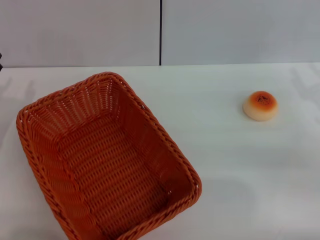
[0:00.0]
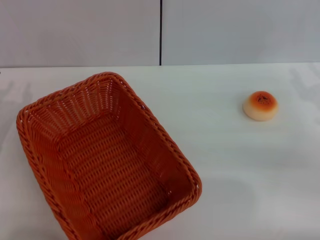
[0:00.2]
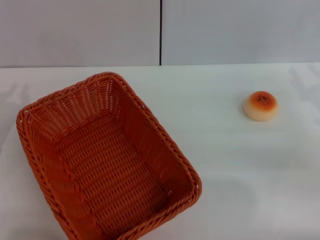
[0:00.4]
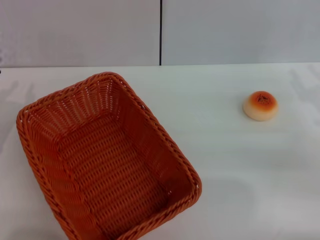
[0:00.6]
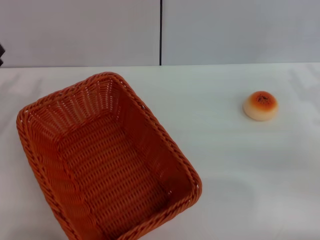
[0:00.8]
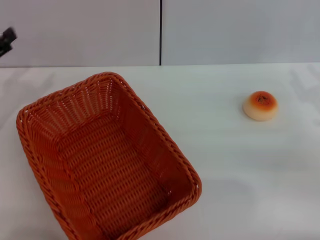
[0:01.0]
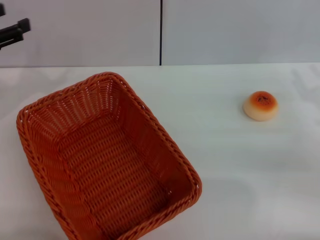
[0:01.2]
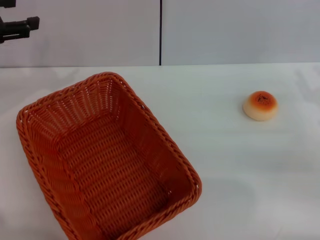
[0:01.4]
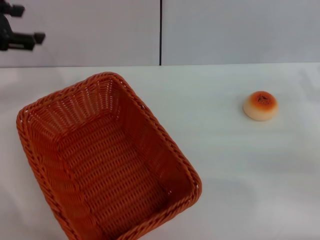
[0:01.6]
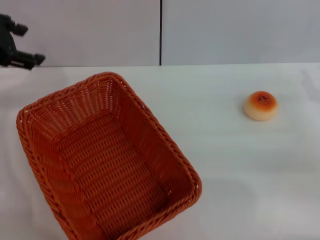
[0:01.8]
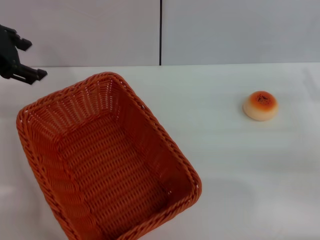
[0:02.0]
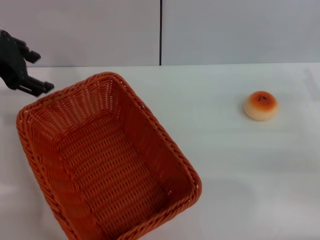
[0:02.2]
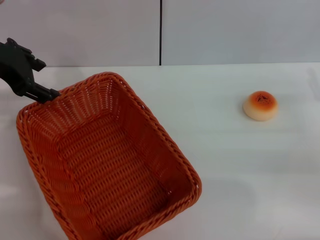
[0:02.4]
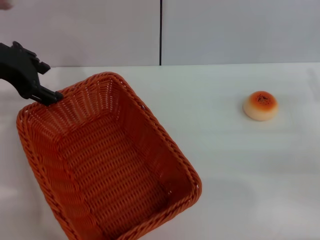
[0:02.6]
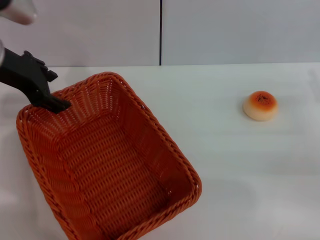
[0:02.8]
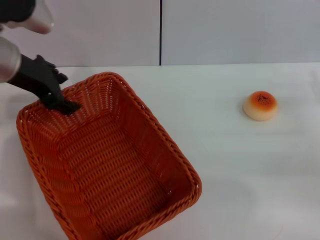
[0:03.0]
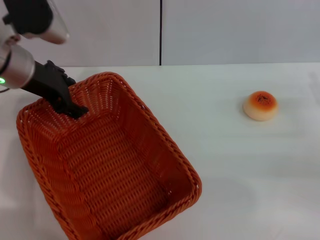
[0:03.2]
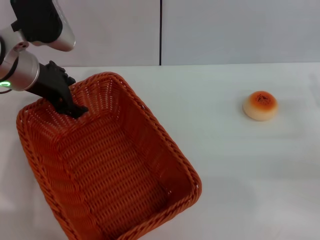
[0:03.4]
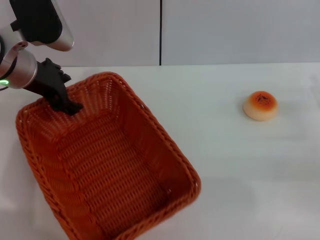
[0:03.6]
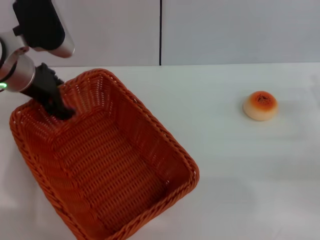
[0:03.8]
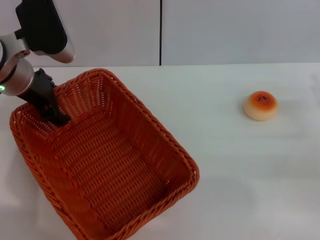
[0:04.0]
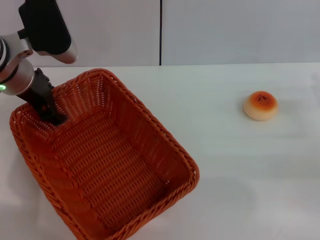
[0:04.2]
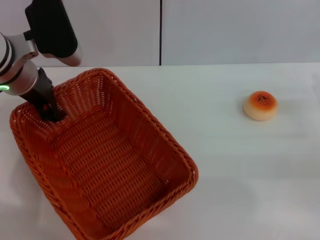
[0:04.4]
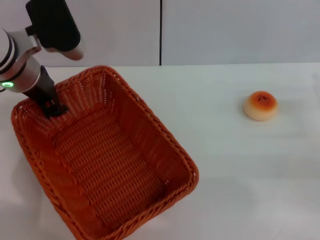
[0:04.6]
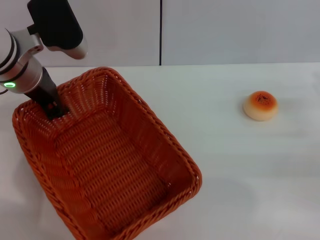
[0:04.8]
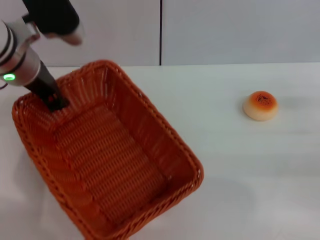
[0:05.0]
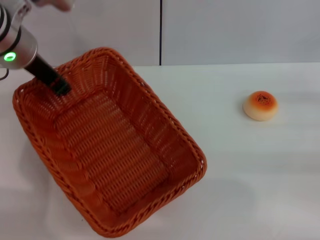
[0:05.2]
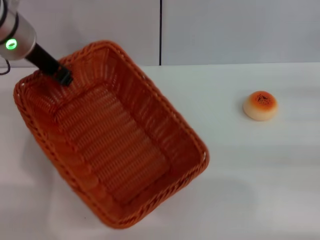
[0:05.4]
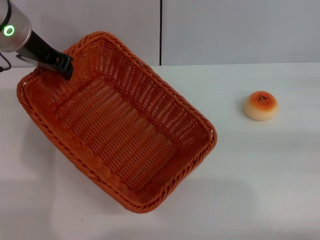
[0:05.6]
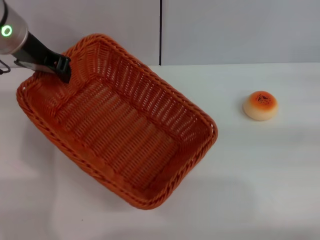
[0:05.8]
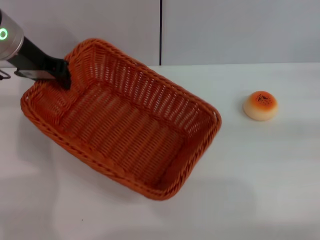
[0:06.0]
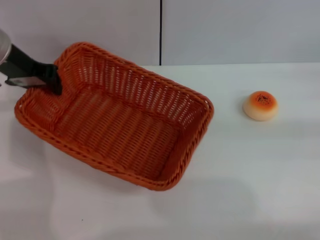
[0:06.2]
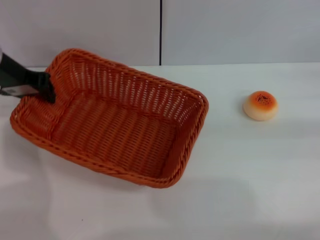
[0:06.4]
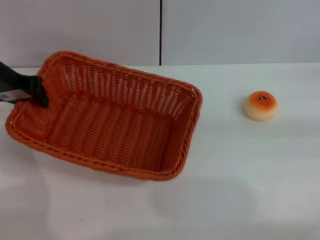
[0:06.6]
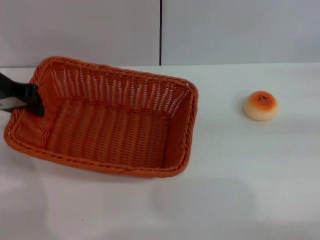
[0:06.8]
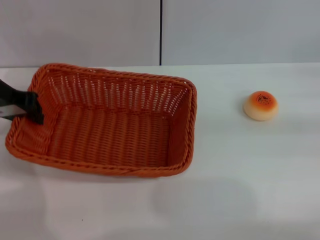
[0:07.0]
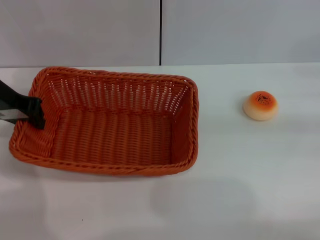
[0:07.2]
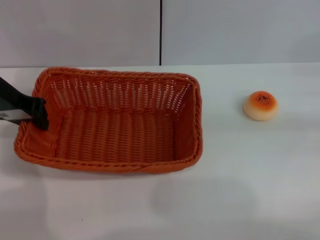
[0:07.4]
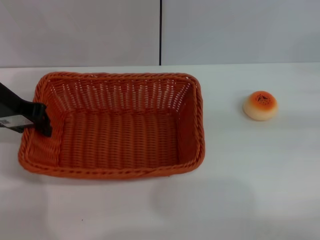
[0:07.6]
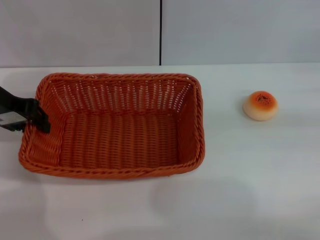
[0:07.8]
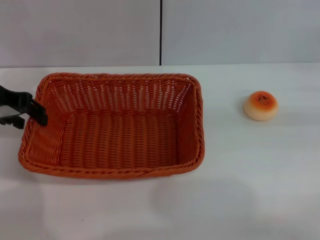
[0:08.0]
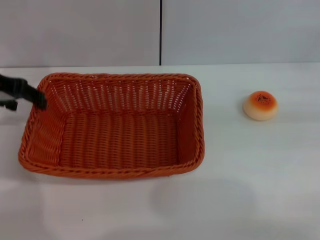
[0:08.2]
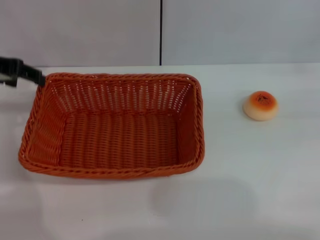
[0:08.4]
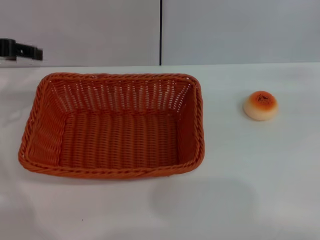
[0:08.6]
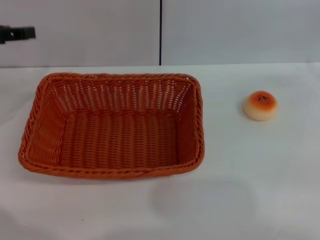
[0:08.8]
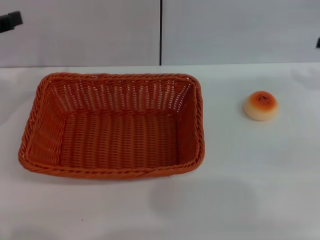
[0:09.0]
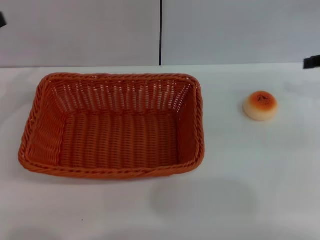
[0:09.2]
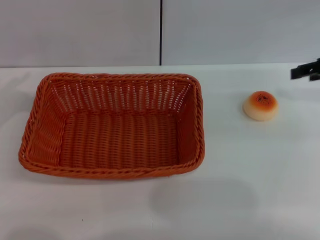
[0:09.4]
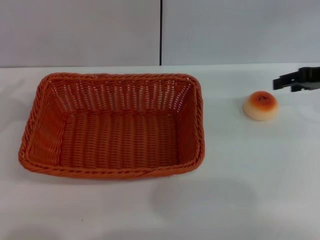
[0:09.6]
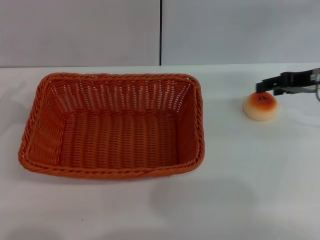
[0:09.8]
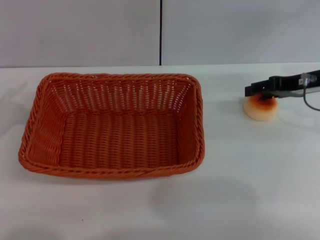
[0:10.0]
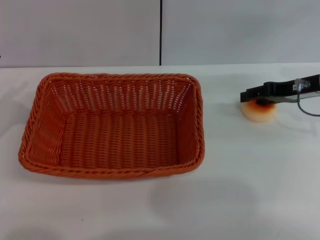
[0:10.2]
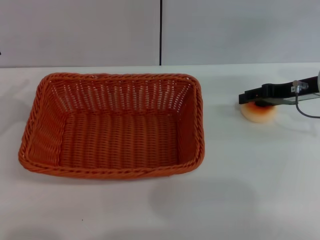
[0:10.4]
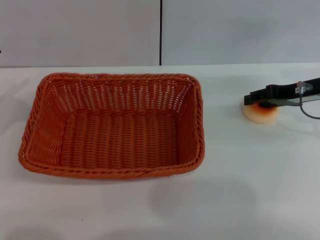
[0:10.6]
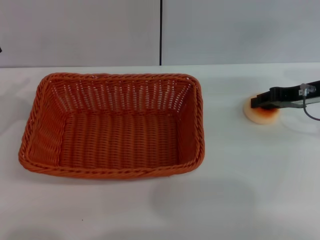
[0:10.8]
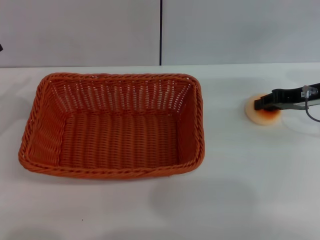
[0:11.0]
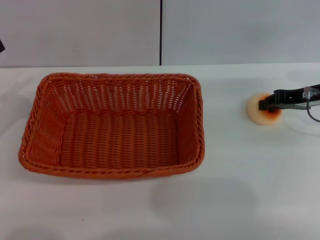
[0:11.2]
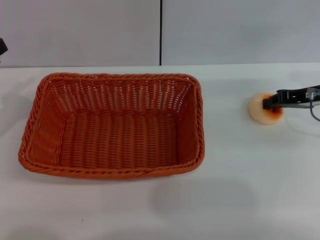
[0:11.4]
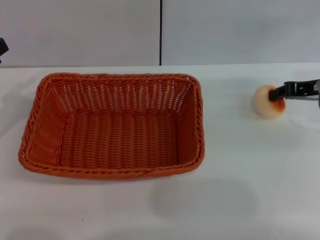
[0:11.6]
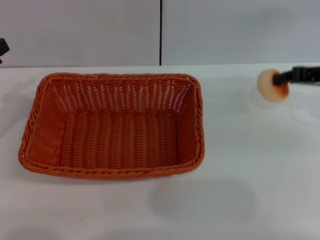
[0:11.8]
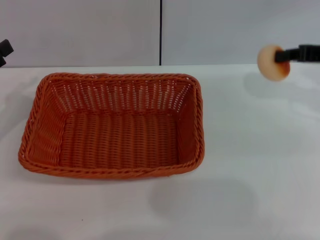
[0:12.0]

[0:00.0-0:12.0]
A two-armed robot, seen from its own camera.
Step, 0:00.0 to 0:08.6: Move the basket to the center of view with the left gripper.
Step, 0:08.8 to 0:11.8: Pick up the egg yolk pastry with the right gripper.
0:00.0 to 0:01.6: The left gripper is displaced upward and forward by about 20 cm, and closes, then reopens.
0:01.6 to 0:03.0: The left gripper heads to the right, covering about 10 cm.
0:03.0 to 0:04.4: The grippers move only a little.
0:04.4 to 0:06.0: The right gripper is displaced to the right, upward and forward by roughly 15 cm. The left gripper ends up about 5 cm from where it was, and closes its fingers.
0:06.0 to 0:07.6: The left gripper shifts by approximately 5 cm.
0:07.6 to 0:09.0: The left gripper heads to the left, covering about 10 cm, and opens its fingers.
0:09.0 to 0:10.4: The right gripper travels to the left and downward by about 10 cm.
0:10.4 to 0:12.0: The right gripper goes approximately 5 cm upward, and closes.

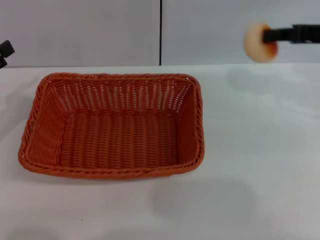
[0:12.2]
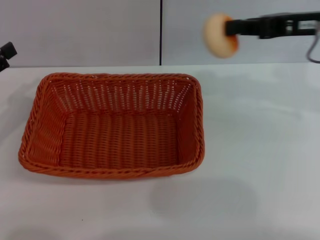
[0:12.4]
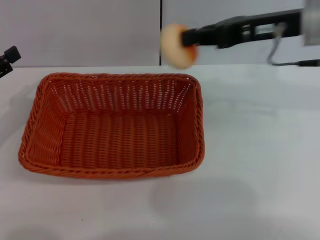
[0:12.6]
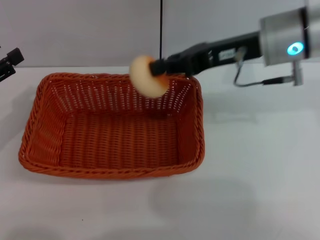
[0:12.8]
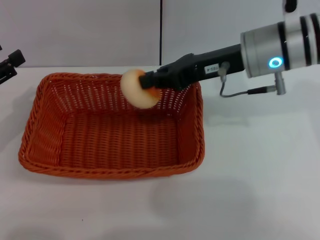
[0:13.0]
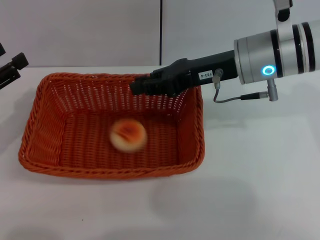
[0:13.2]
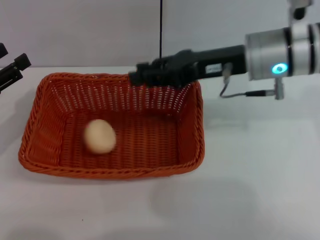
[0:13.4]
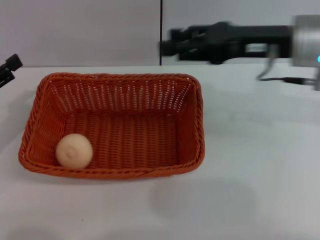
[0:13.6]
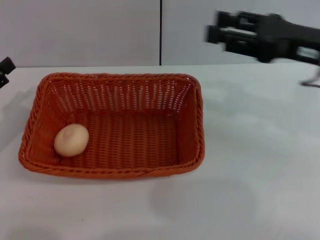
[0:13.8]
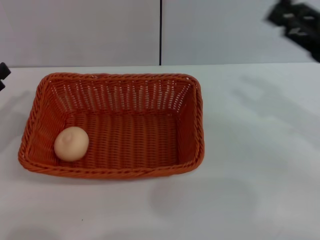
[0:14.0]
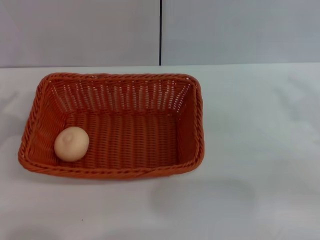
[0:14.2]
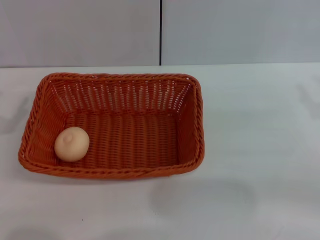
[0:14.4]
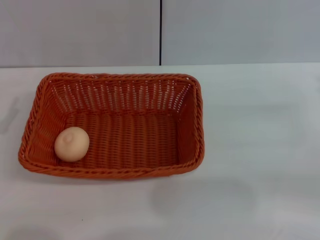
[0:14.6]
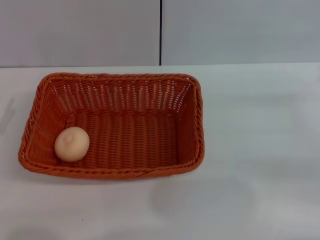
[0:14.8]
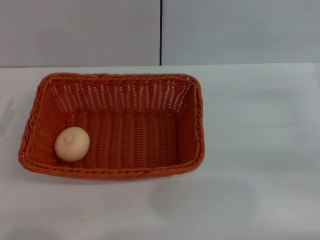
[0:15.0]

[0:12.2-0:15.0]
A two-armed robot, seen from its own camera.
Step, 0:12.2 to 0:13.4: Place the egg yolk pastry into the basket with the right gripper.
0:12.2 to 0:13.6: The right gripper shifts roughly 10 cm to the left, and opens up.
0:13.6 to 0:15.0: The right gripper is displaced to the right and downward by roughly 20 cm. Meanwhile the left gripper heads downward, covering approximately 5 cm.
